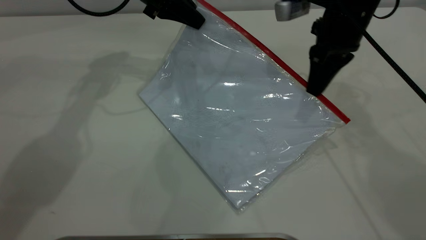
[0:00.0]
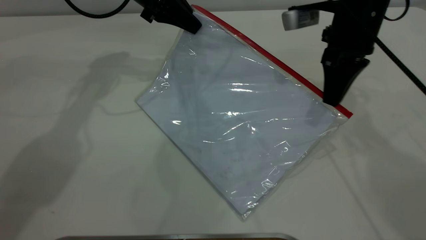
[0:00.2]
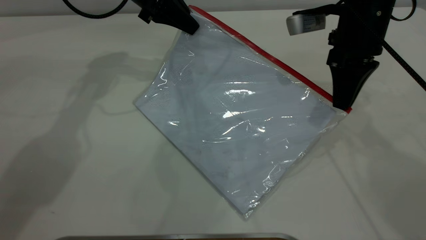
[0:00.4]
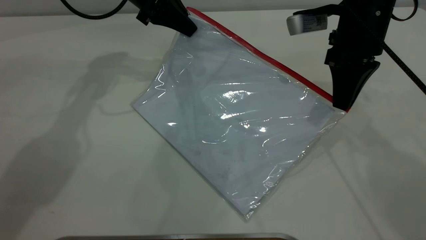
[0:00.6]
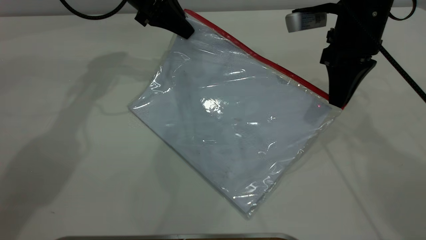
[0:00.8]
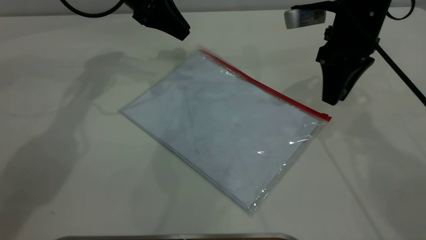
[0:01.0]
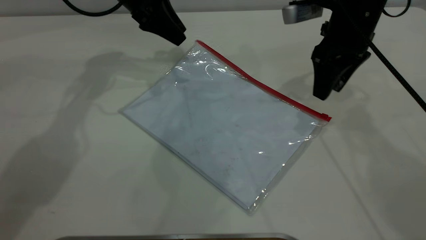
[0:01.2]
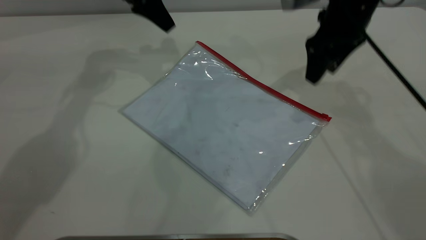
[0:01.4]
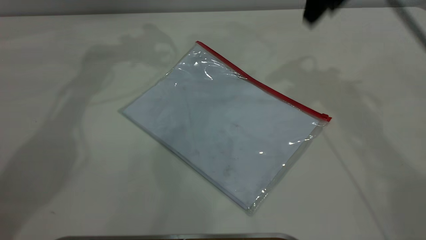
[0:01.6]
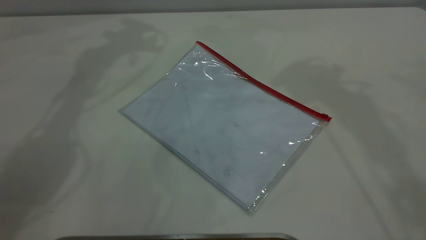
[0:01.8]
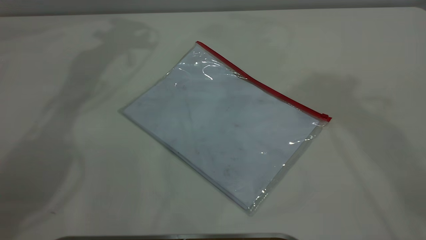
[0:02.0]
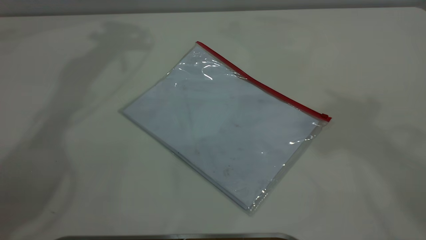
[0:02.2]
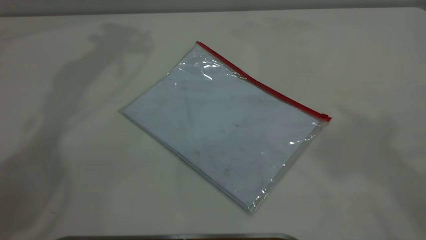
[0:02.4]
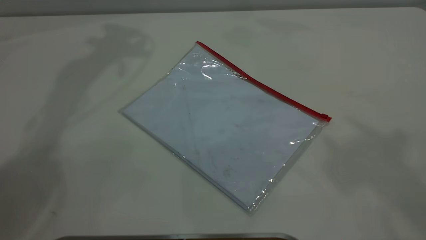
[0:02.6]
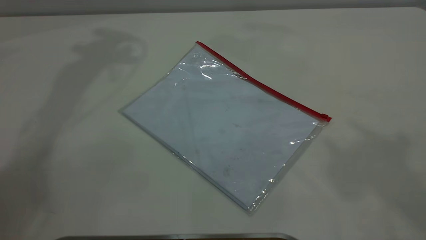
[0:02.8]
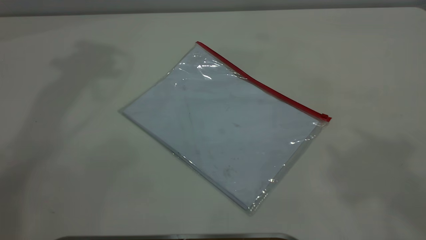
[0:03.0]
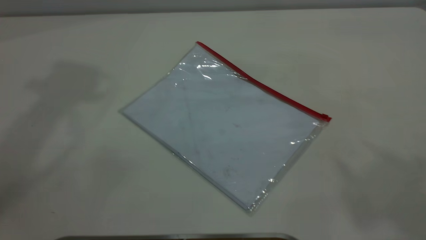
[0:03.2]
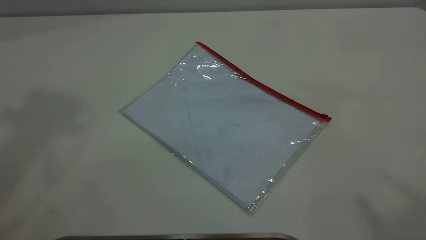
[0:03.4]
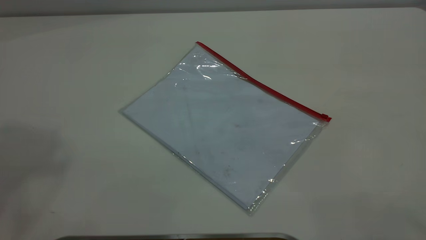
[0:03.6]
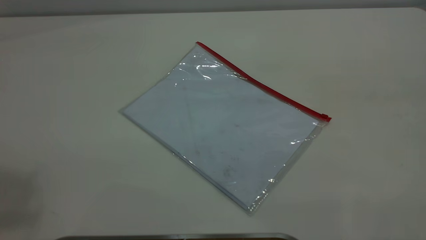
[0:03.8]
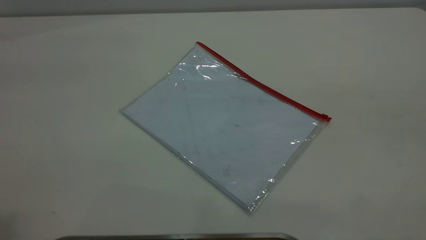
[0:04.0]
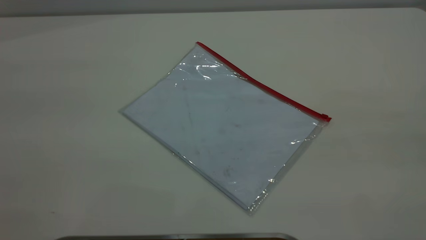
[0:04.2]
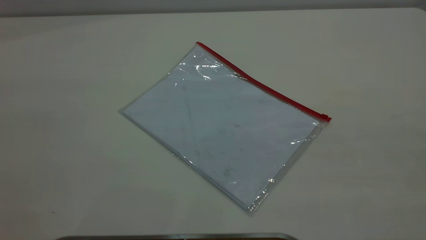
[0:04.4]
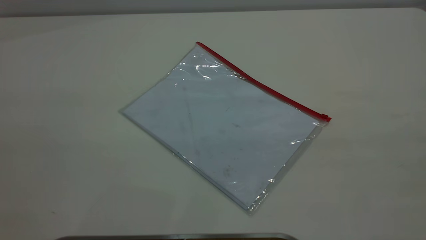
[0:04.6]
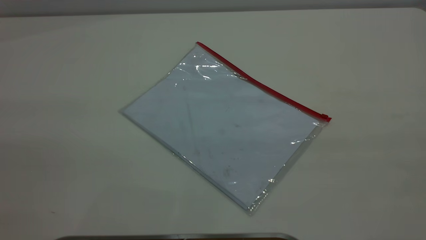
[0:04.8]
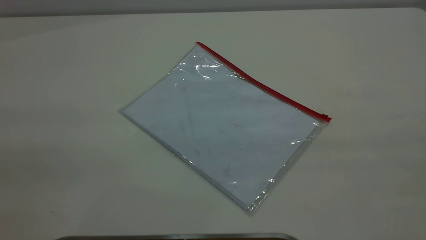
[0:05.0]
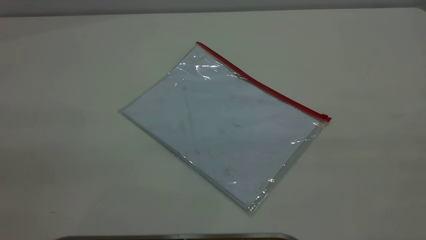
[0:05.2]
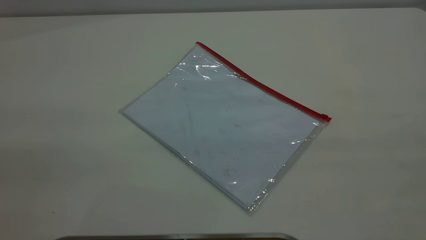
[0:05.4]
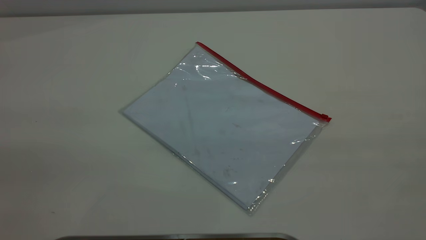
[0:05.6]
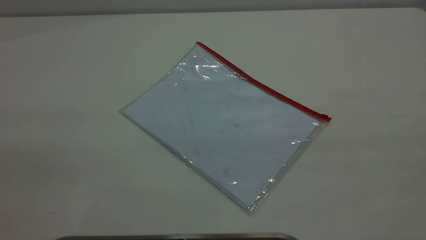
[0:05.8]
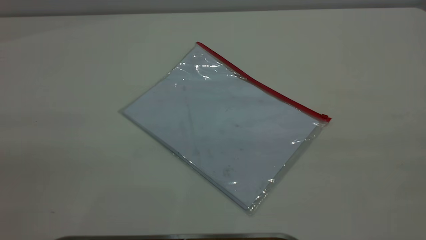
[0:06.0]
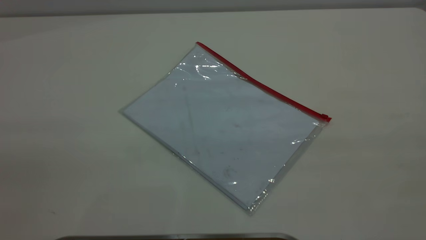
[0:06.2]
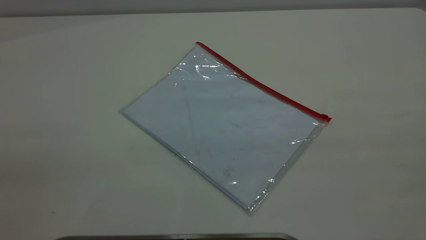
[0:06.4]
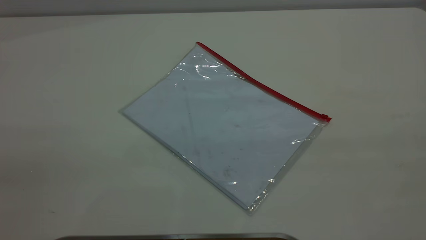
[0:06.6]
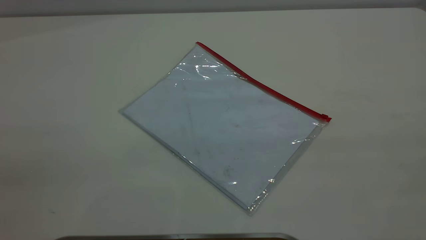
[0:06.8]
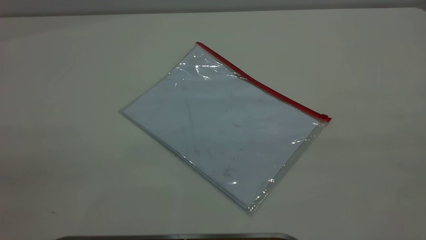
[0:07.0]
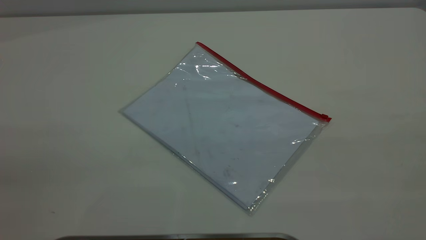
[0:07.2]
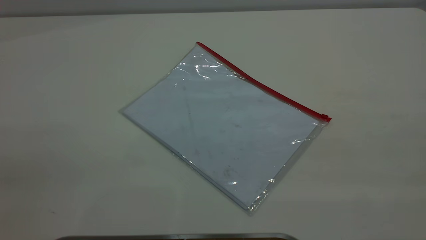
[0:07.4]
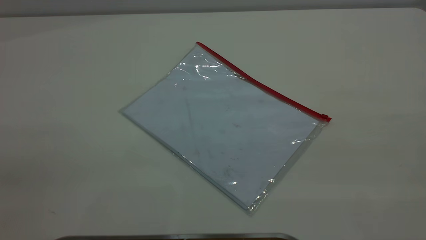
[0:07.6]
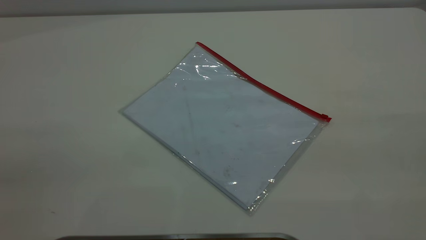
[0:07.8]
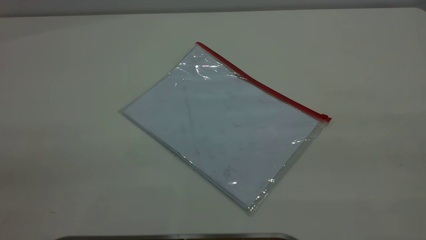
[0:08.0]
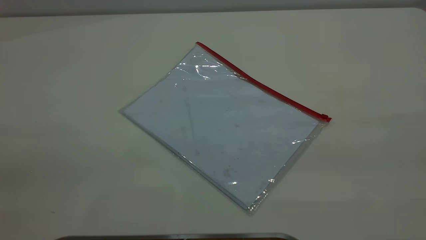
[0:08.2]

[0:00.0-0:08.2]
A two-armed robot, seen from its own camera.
Step, 0:01.0 to 0:01.4: Place the transparent plastic bag.
0:00.0 to 0:01.6: Both grippers travel together upward, about 10 cm. The right gripper opens. The left gripper opens its fingers.
0:01.6 to 0:03.2: The right gripper moves upward and backward, some 40 cm.
